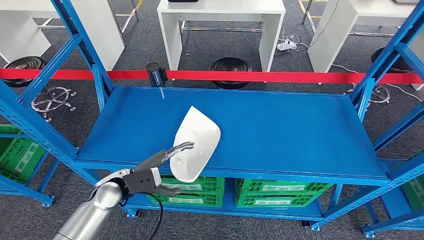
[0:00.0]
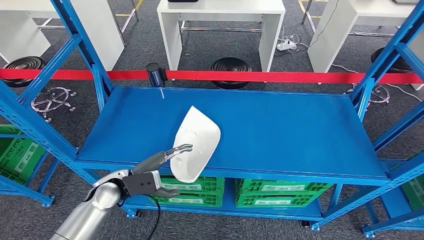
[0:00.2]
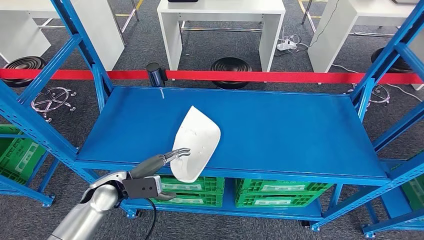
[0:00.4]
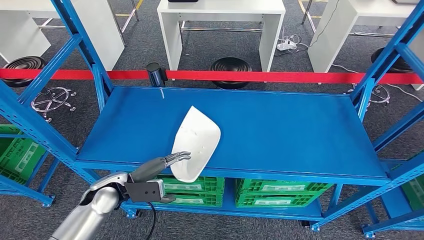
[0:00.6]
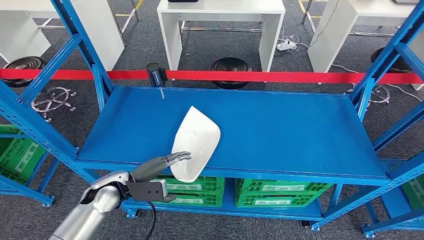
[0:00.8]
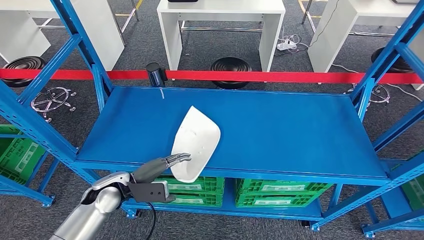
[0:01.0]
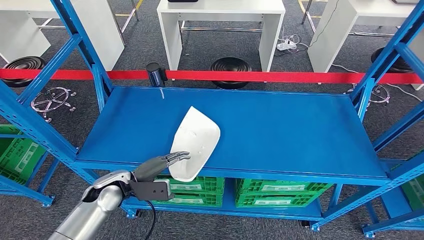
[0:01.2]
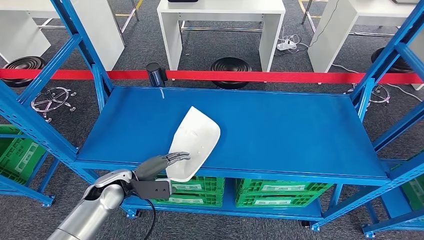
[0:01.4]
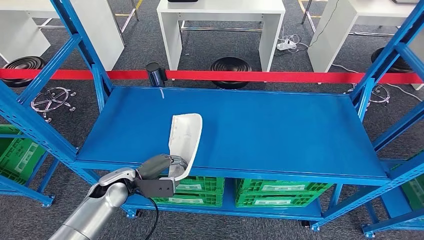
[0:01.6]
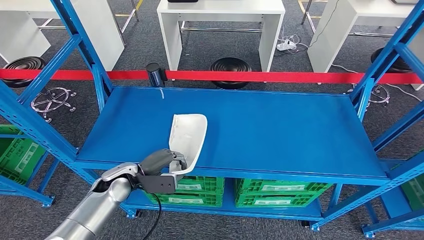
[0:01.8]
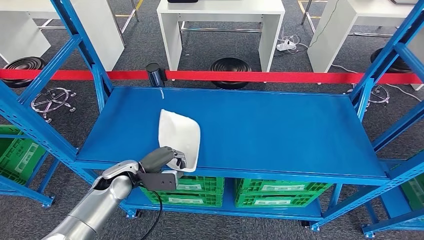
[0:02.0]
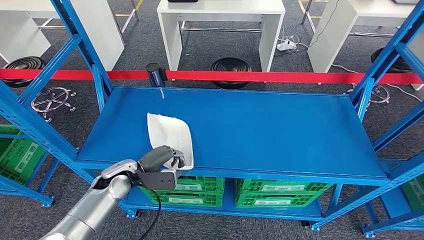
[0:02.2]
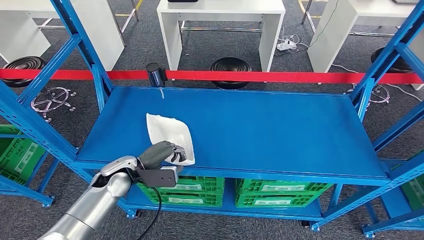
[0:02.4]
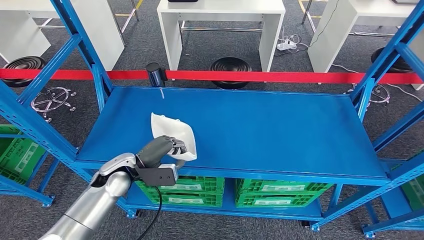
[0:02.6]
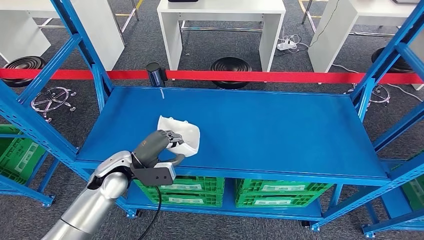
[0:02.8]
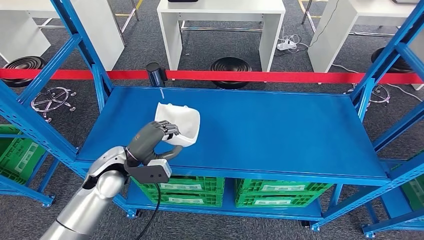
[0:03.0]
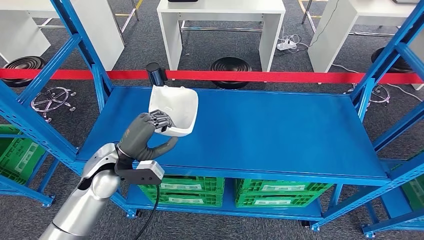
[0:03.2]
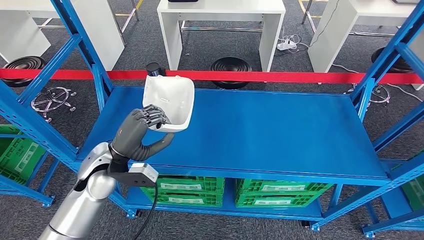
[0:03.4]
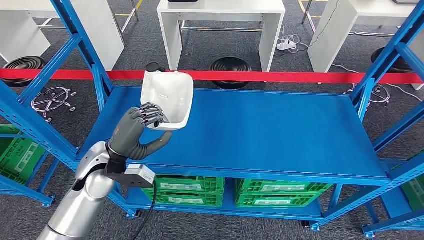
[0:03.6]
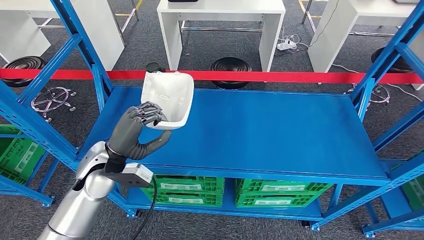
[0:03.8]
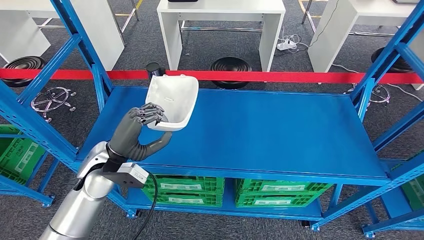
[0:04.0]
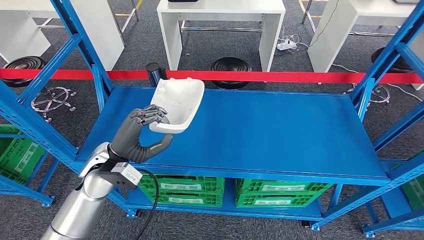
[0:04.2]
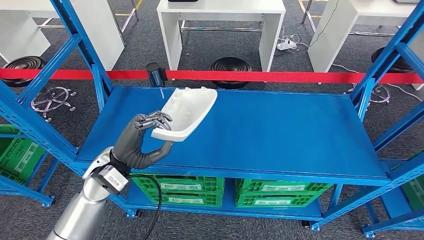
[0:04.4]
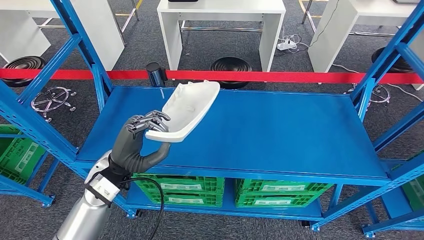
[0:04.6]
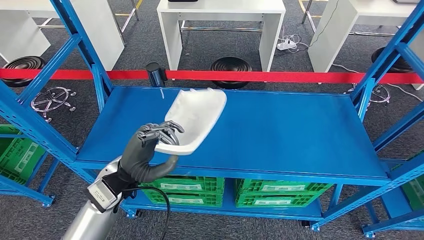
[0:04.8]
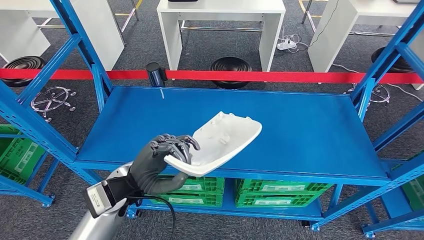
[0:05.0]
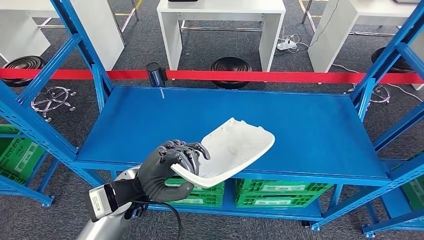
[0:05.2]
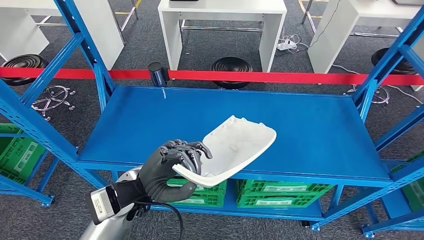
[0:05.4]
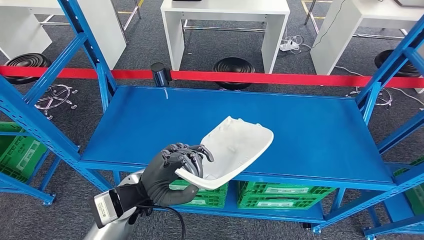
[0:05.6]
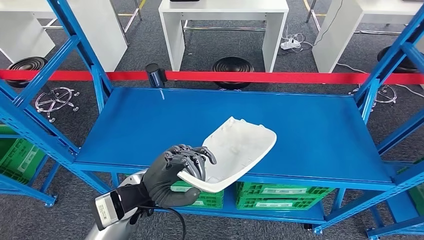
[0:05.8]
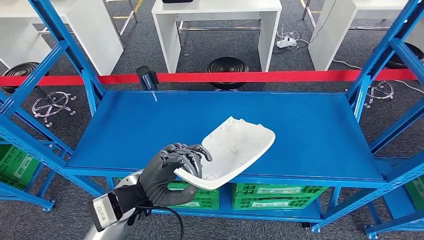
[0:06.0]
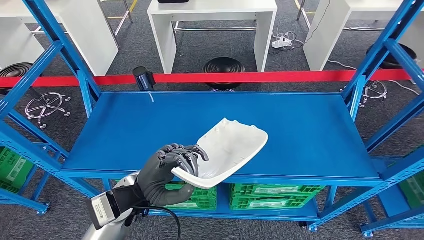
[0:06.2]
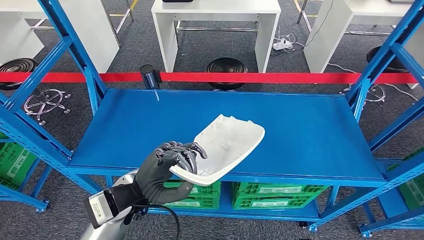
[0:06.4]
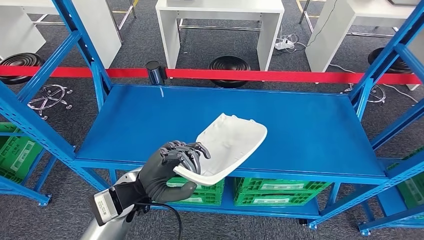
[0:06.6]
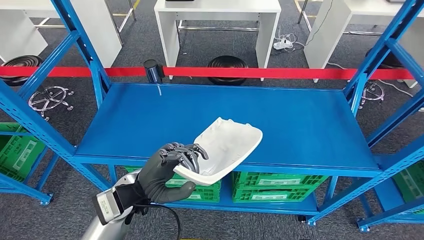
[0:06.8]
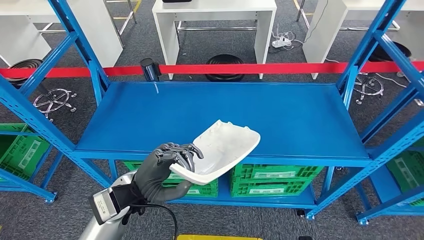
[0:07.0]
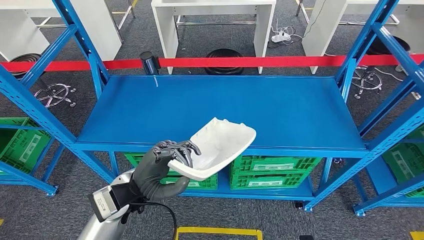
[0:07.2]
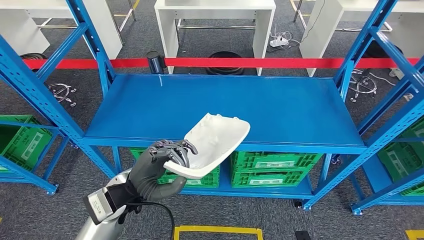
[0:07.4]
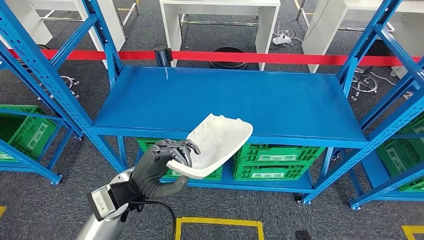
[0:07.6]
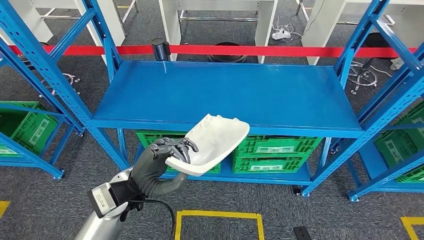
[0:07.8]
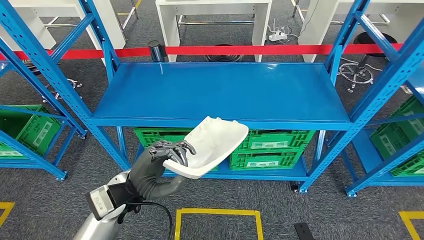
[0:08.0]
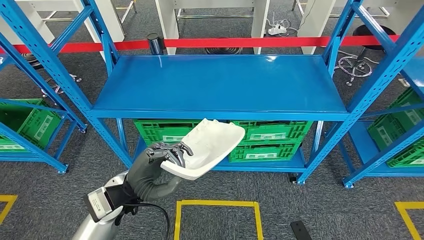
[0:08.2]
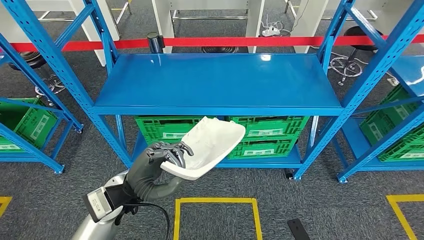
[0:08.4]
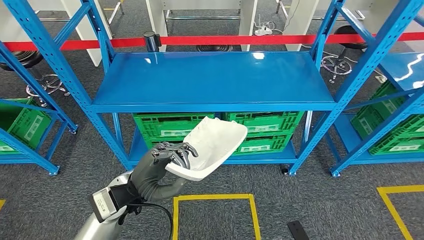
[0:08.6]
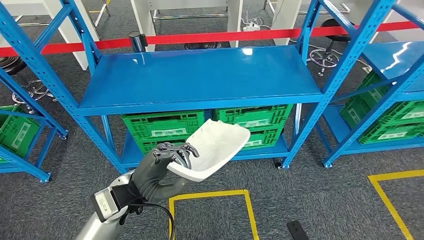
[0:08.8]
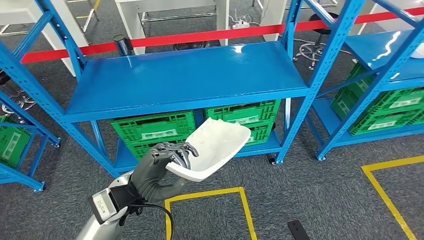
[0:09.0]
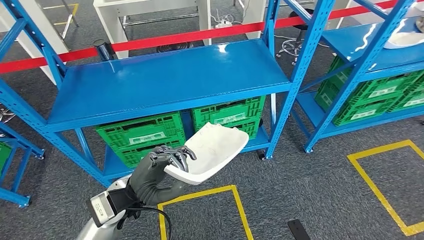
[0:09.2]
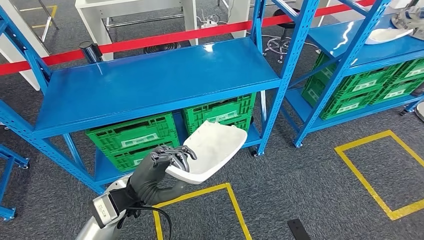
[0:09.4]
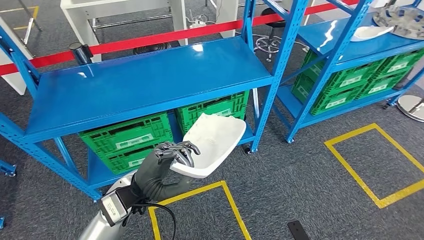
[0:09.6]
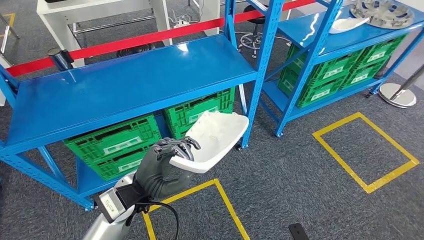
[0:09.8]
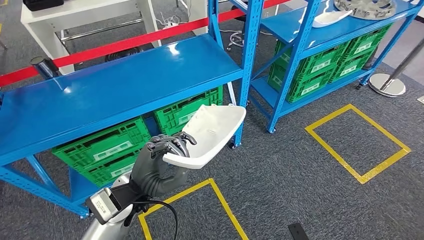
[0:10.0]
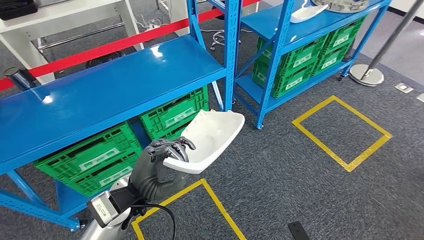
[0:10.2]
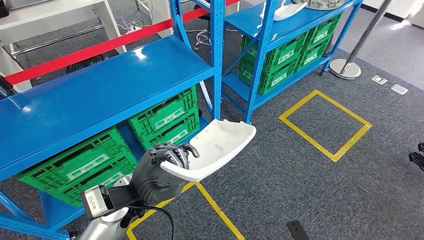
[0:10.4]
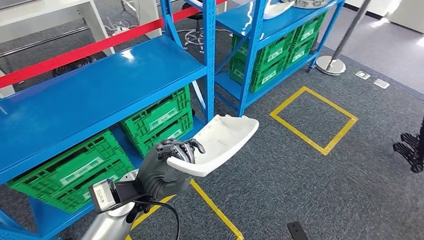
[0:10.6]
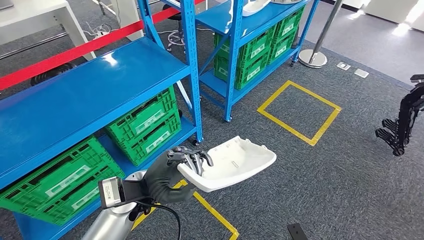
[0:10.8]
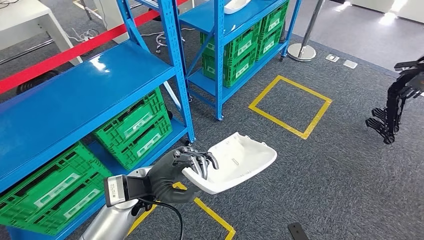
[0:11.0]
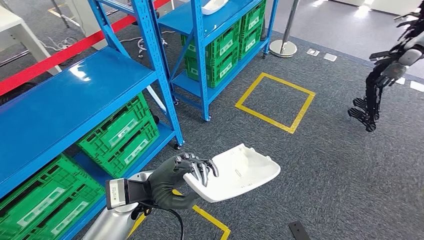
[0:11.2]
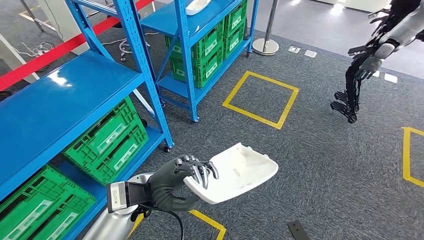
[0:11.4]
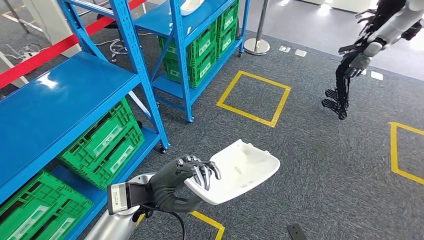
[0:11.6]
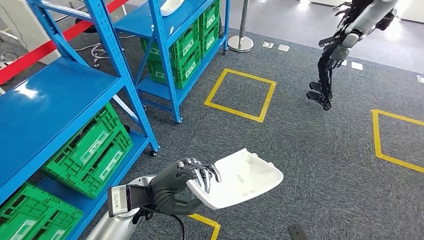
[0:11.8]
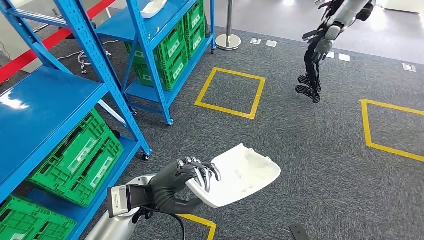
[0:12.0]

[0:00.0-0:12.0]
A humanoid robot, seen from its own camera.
Step, 0:00.0 to 0:04.8: Pick up the small component from the shelf.
0:01.6 to 0:03.0: The left hand is displaced upward by roughly 10 cm.

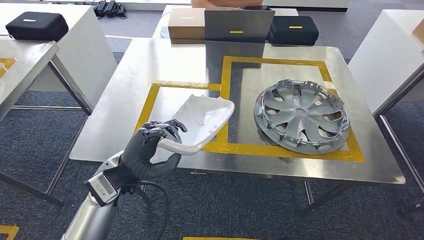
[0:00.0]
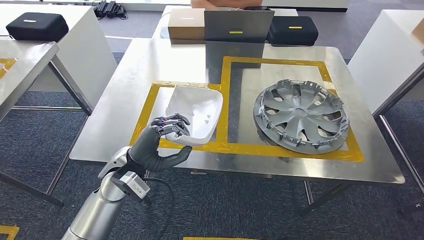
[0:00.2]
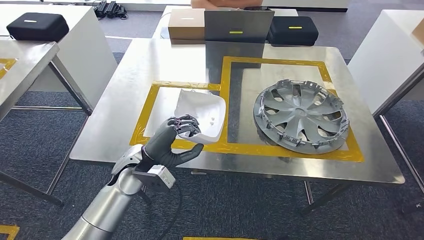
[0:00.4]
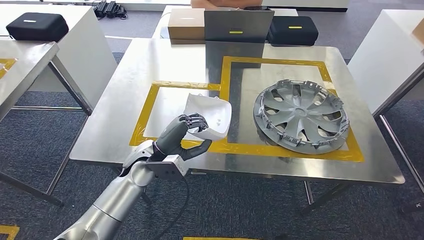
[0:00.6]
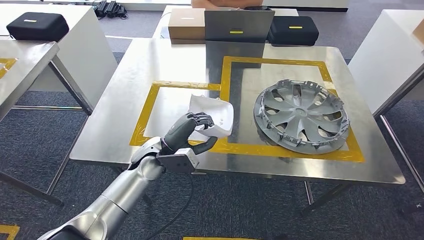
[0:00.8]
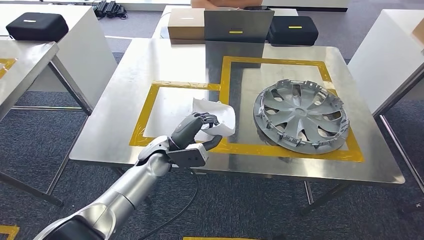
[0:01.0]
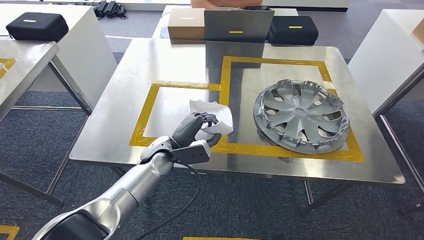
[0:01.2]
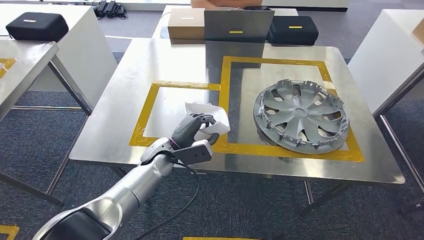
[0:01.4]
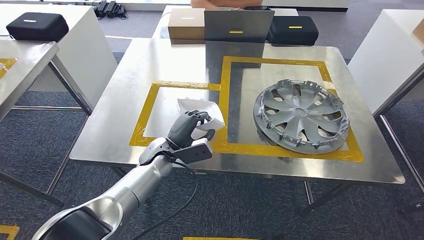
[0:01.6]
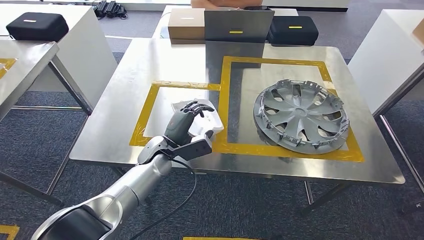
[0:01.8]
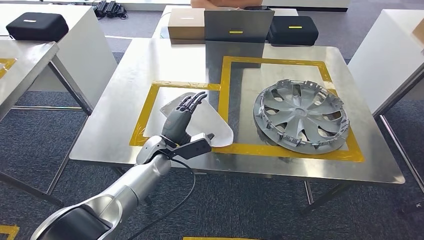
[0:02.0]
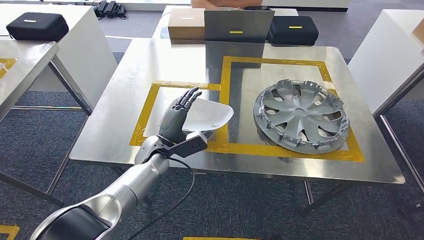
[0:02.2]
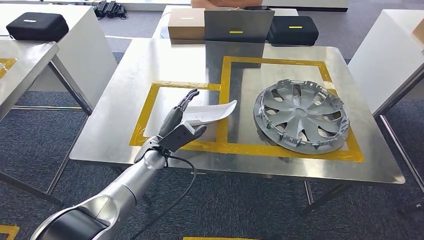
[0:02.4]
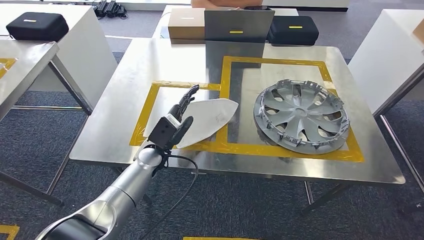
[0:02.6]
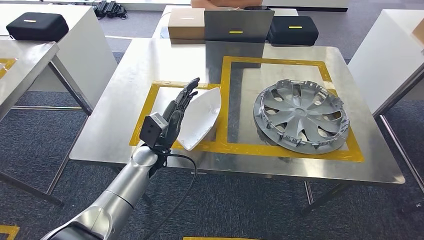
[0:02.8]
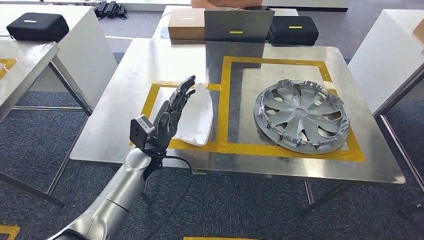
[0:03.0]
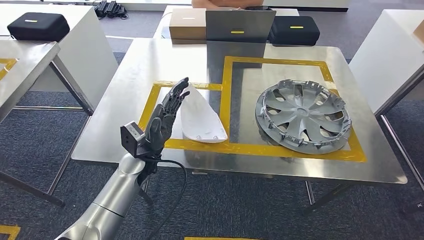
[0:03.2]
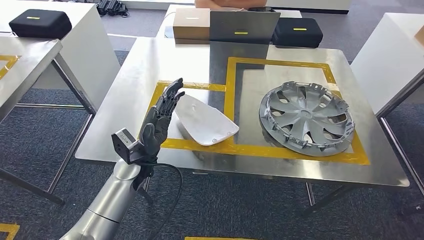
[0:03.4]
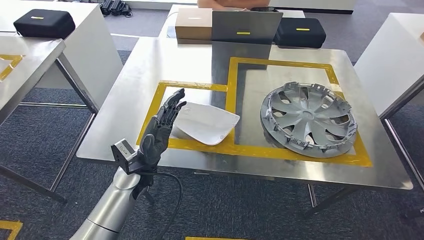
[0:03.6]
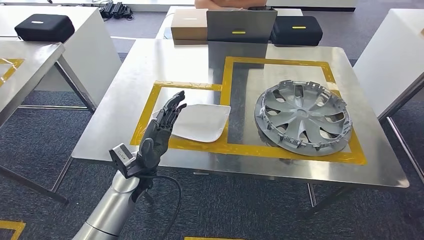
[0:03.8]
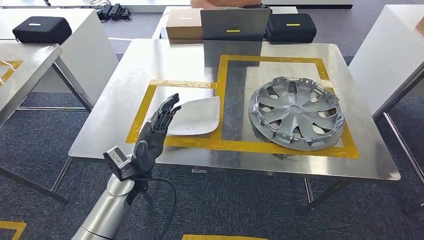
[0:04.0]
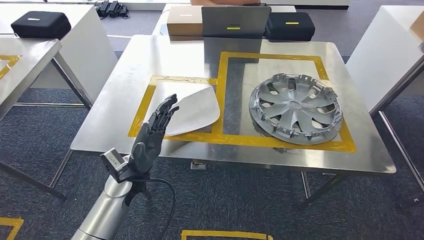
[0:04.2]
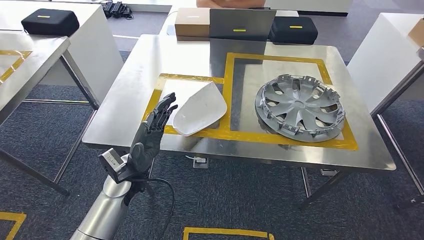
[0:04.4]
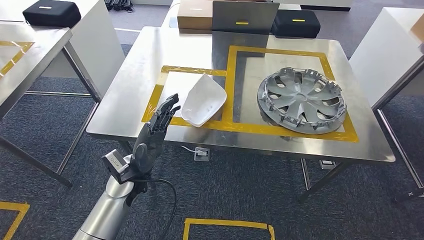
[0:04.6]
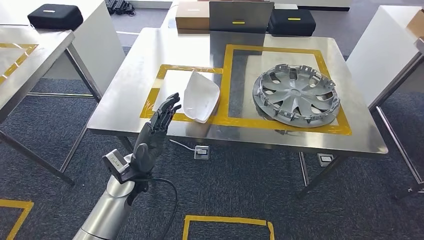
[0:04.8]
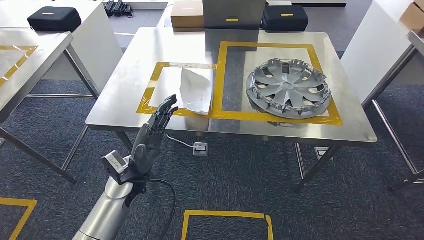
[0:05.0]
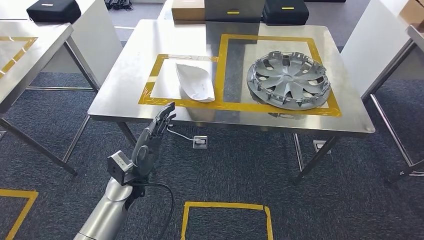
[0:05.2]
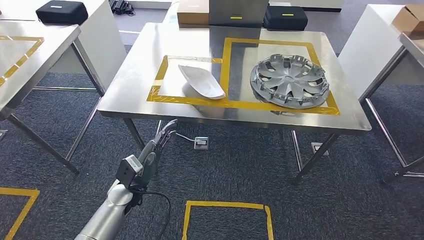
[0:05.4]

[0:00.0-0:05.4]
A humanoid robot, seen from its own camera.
Step, 0:00.8 to 0:03.2: Insert the small component into the corresponding slot on the workbench.
0:00.0 to 0:01.4: The left hand goes some 10 cm downward, forward and to the right.
